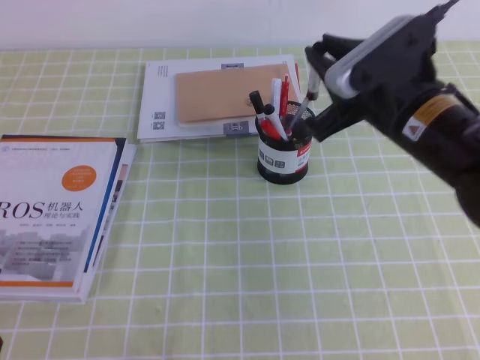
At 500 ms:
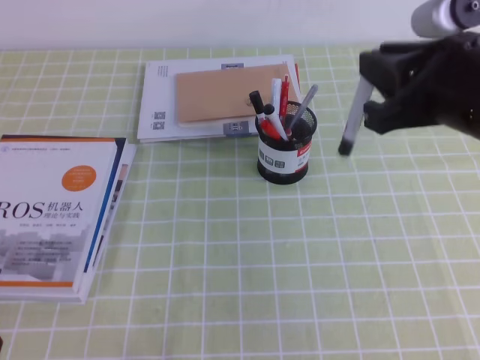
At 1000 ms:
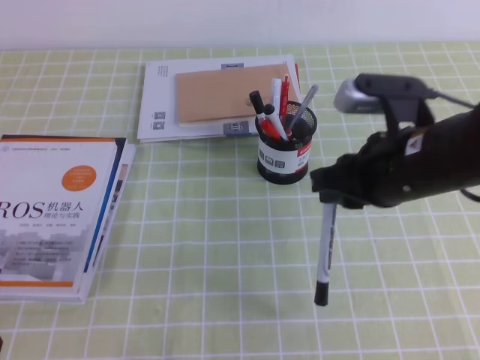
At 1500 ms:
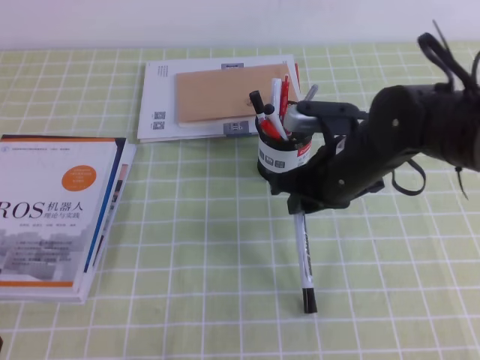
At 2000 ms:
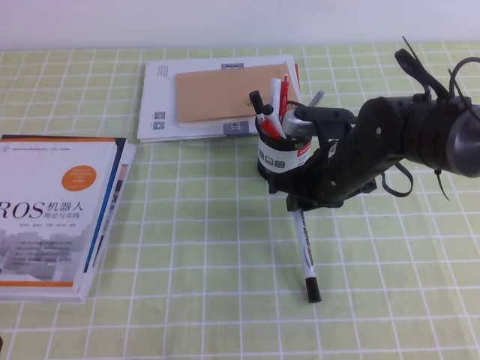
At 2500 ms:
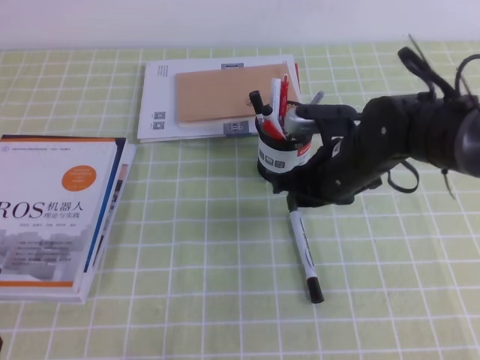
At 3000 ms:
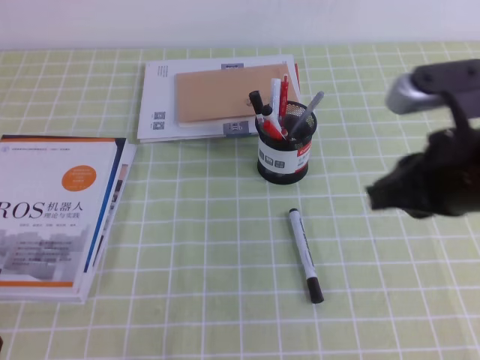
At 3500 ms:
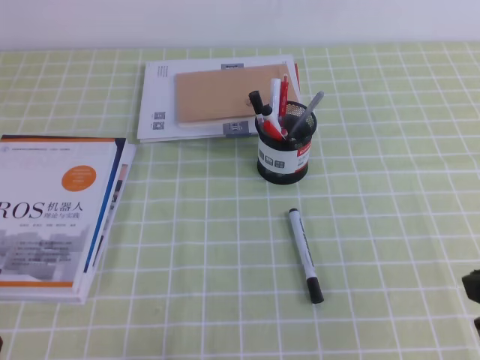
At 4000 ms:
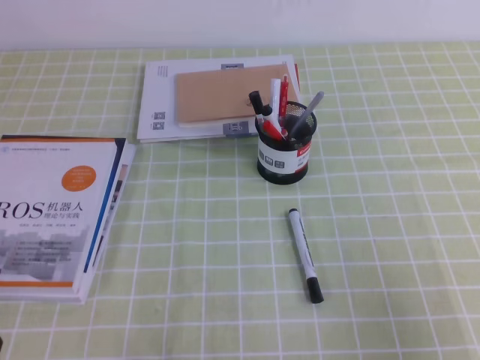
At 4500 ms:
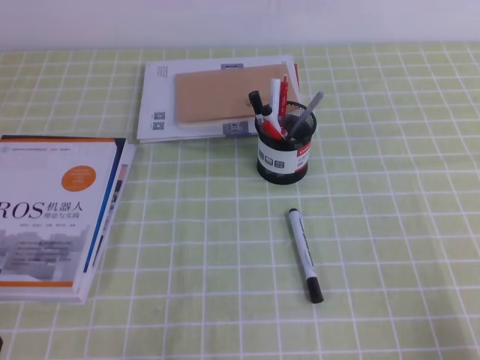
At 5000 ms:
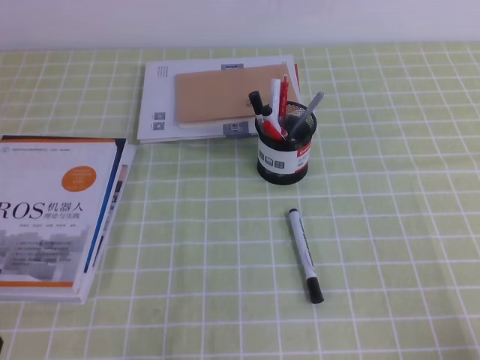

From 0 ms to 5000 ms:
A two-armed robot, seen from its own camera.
Step, from 0 ms to 5000 ms: Pick up the pen from the pen holder.
From 0 ms to 2500 ms: The right gripper heads downward, covering roughly 10 cm.
From 2500 ms to 5000 ms: The right gripper heads backward and to the right, covering some 35 cm, and closes.
